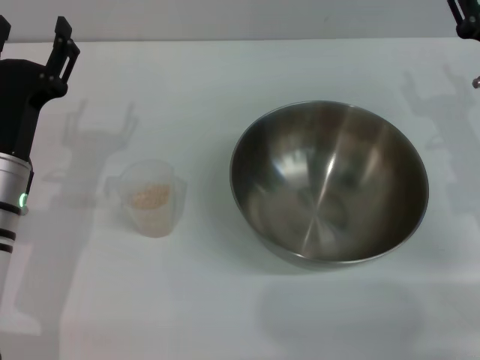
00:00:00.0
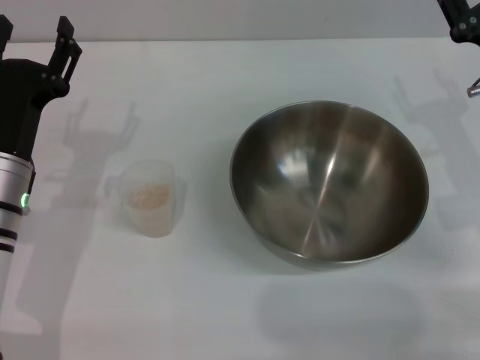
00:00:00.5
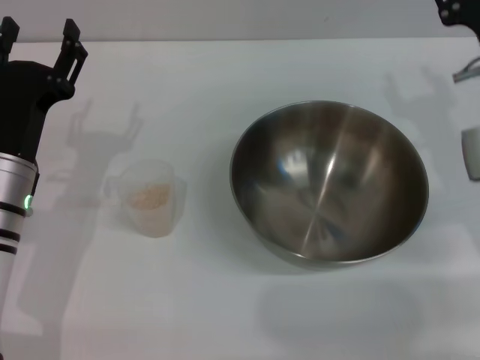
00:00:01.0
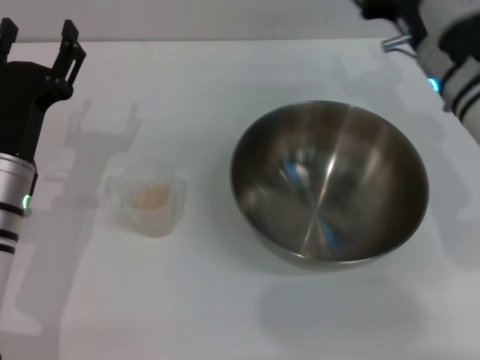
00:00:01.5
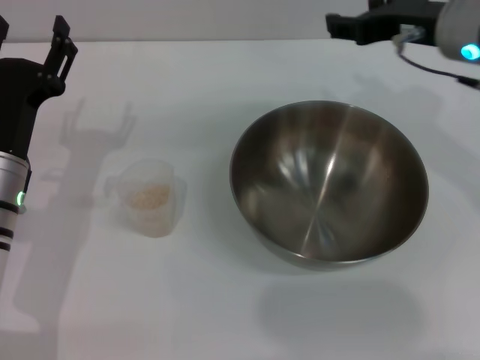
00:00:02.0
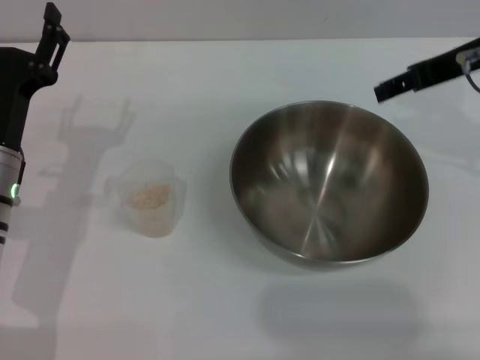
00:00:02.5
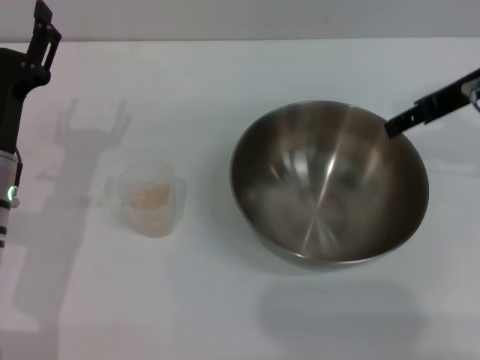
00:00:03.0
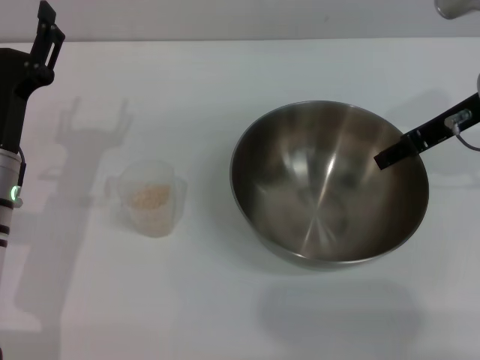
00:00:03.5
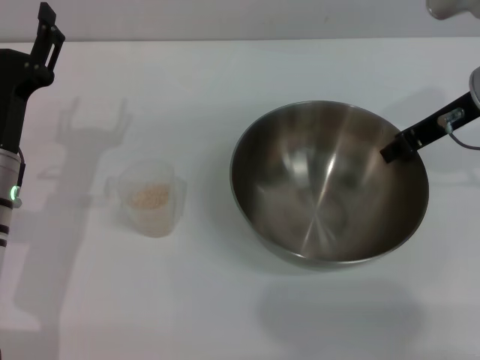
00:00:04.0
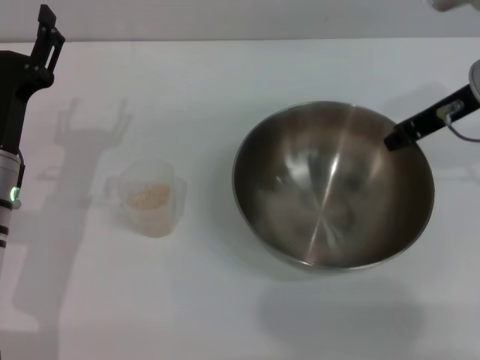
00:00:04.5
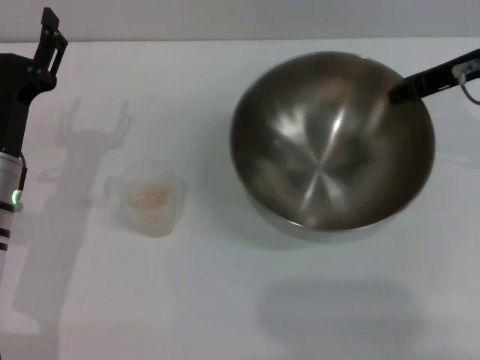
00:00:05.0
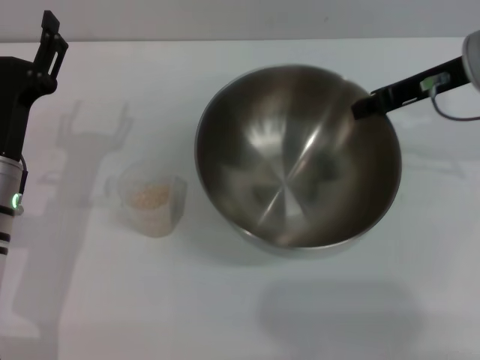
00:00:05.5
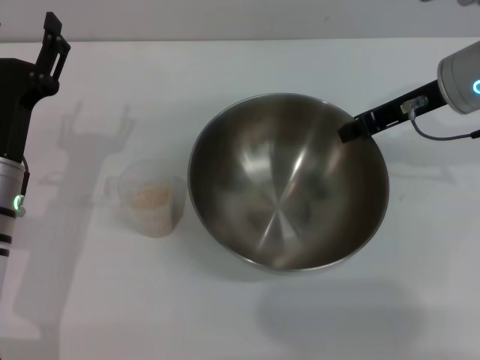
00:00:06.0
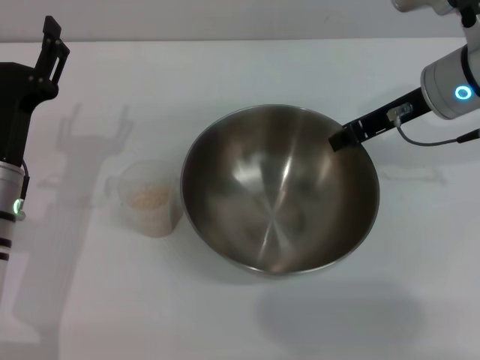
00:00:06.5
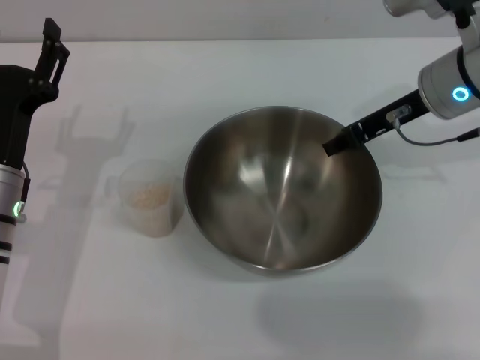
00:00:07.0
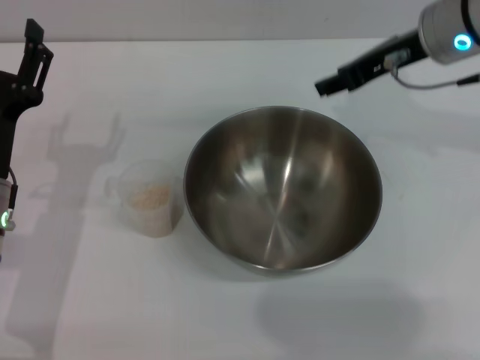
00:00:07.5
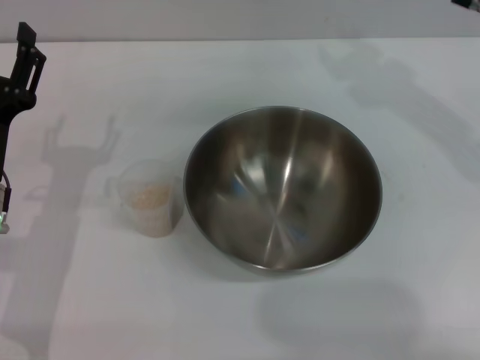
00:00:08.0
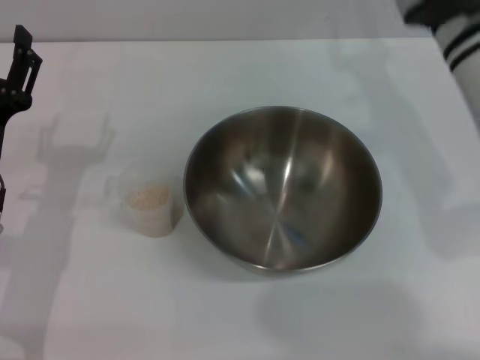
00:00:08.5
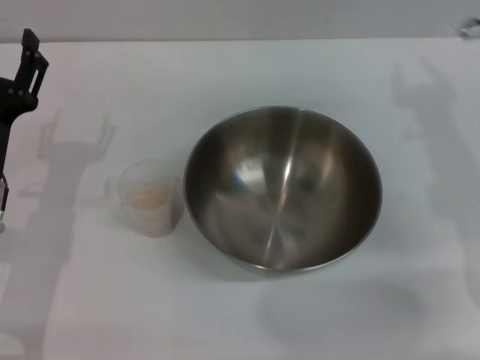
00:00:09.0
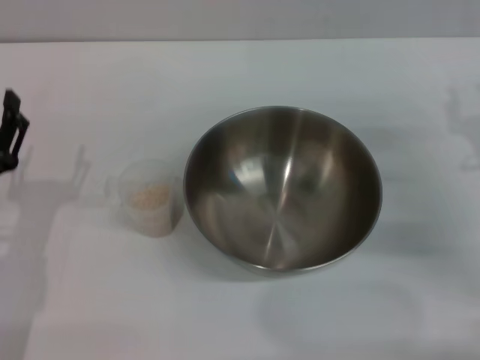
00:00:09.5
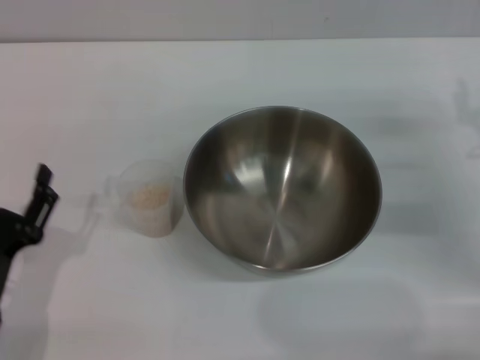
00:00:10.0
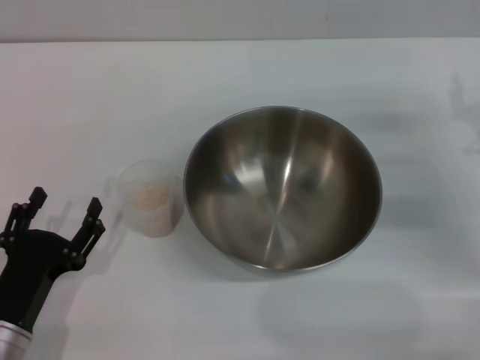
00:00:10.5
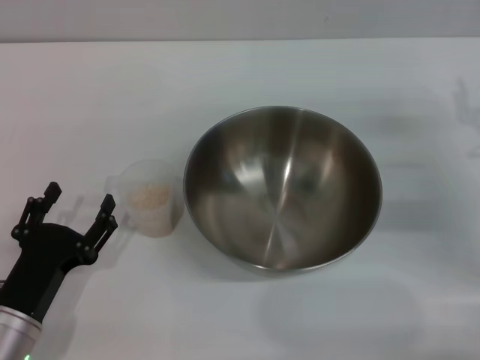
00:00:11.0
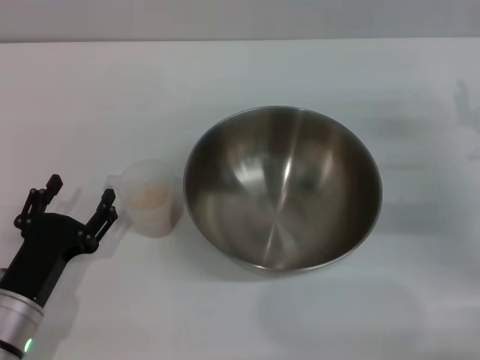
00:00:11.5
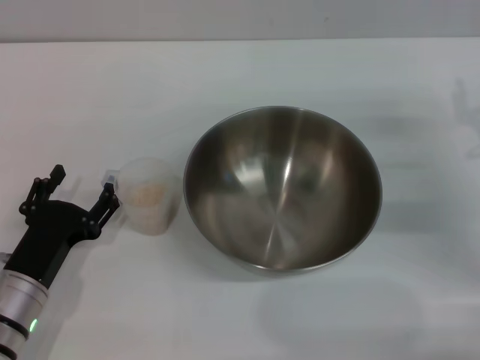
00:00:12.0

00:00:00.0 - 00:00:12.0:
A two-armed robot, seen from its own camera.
Task of the whole recording: Place the bowl in the middle of the table with one hand and pour the rice from the grain cup into it with the other hand.
Step, 00:00:00.0 - 00:00:05.0: Pick up the bowl with the right gripper.
Step, 00:00:05.5 - 00:00:07.0: Place the bowl in the center of view with the right gripper.
00:00:00.0 - 00:00:02.0: The right gripper moves upward and to the left, roughly 15 cm.
00:00:02.0 - 00:00:04.0: The right gripper changes place by about 5 cm.
00:00:04.0 - 00:00:06.0: The right gripper closes up.
00:00:06.0 - 00:00:08.0: The right gripper heads upward, covering about 5 cm, and opens.
00:00:08.0 - 00:00:10.0: The right gripper heads downward, to the right and backward, covering roughly 25 cm; the left gripper travels backward and downward by some 10 cm.
00:00:10.0 - 00:00:12.0: The left gripper changes place by roughly 5 cm.

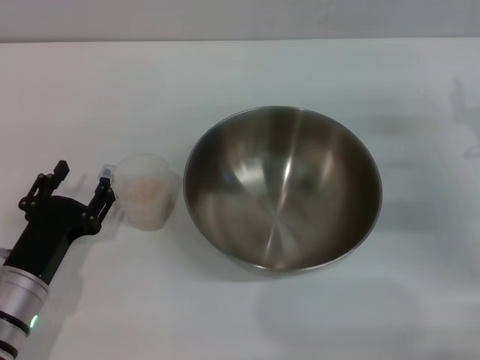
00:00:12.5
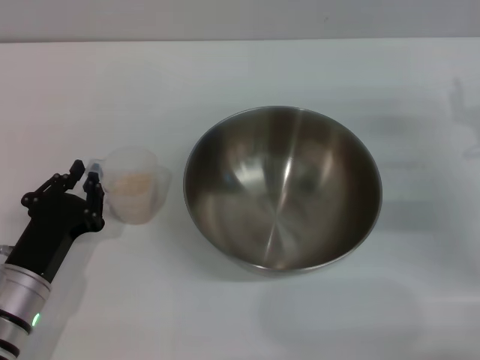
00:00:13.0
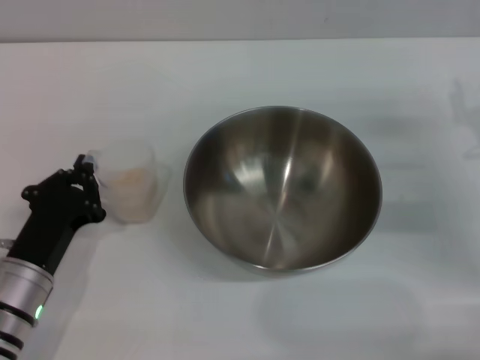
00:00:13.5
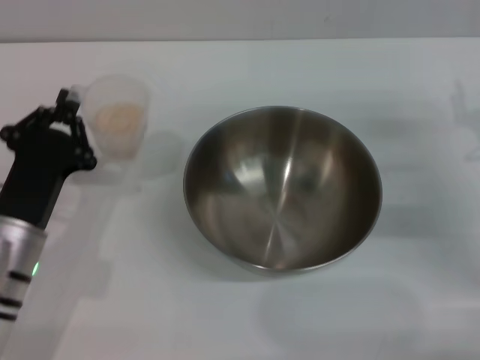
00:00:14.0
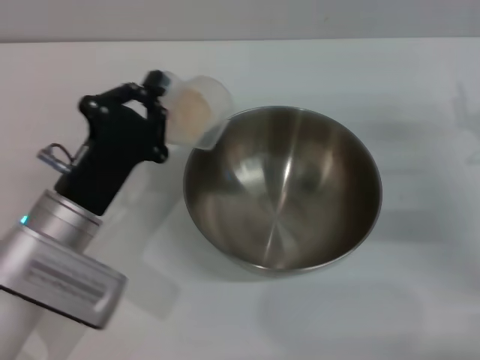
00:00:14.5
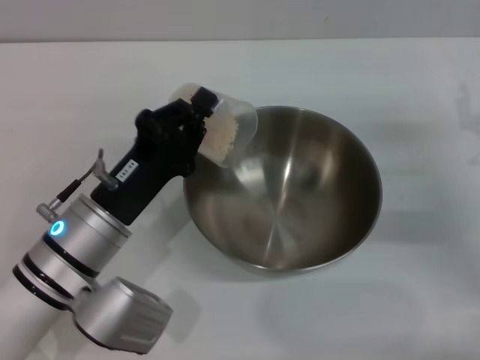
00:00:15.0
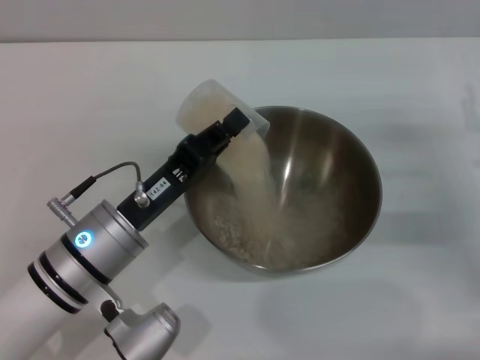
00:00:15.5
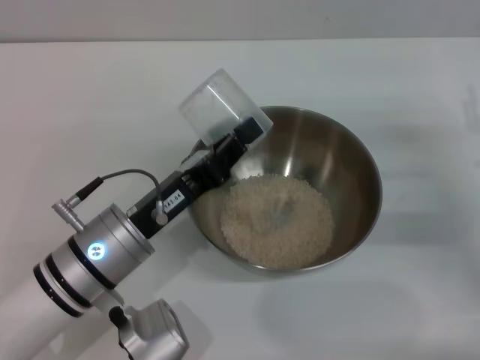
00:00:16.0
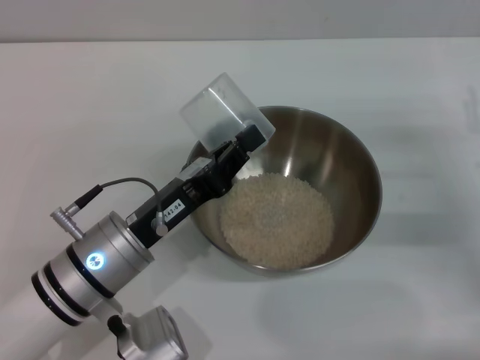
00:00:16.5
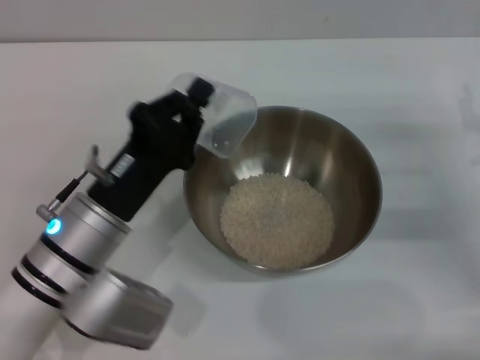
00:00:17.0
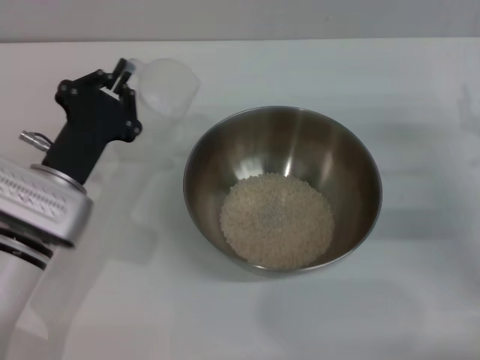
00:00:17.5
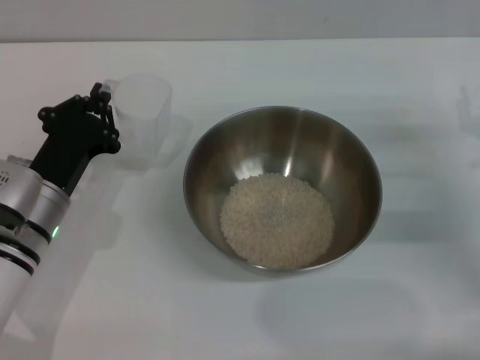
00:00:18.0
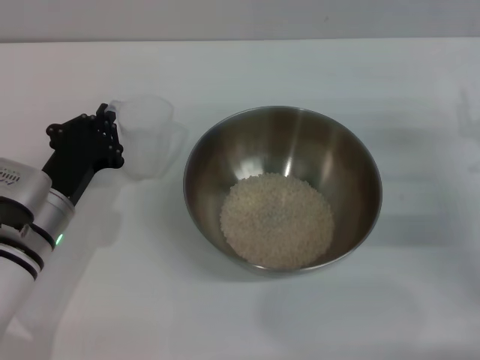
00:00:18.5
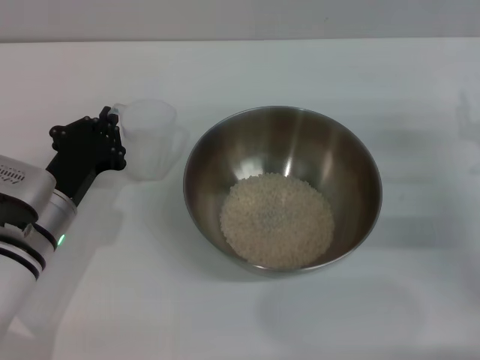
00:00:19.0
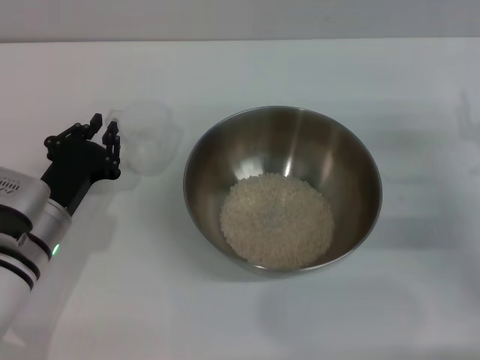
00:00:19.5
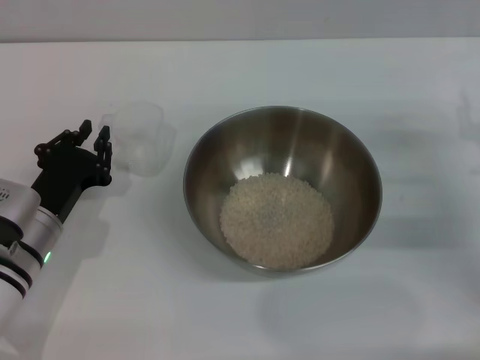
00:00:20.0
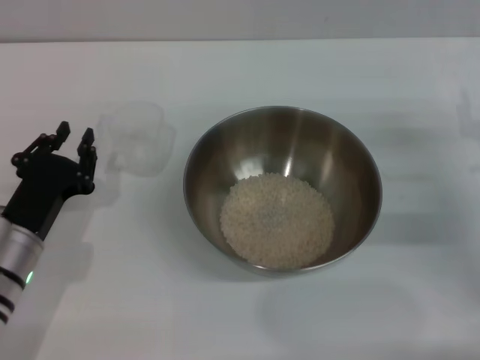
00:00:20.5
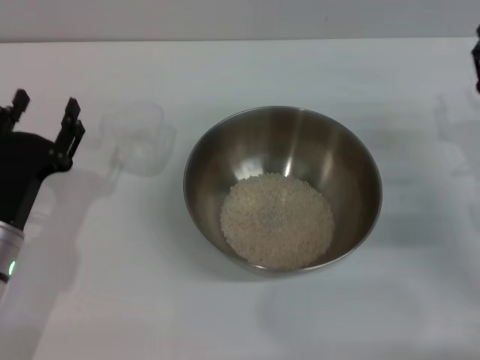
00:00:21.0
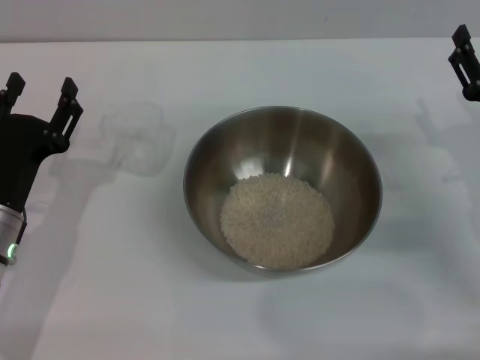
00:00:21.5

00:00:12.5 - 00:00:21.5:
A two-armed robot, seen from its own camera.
Task of the whole recording: Place the bowl in the middle of the table with one hand and pour the rice from the grain cup into it with the other hand.
Step, 00:00:14.0 - 00:00:16.5: Pour the rice from the cup into the bowl with the left gripper.
Step, 00:00:17.0 - 00:00:20.0: Place the cup on the table with the left gripper.
00:00:12.5 - 00:00:14.5: The left gripper travels upward and to the right by roughly 10 cm, and closes.
00:00:17.0 - 00:00:19.5: The left gripper shifts some 5 cm to the left.
00:00:19.5 - 00:00:21.5: The left gripper opens.
